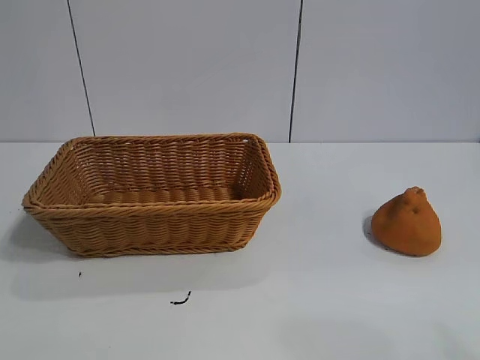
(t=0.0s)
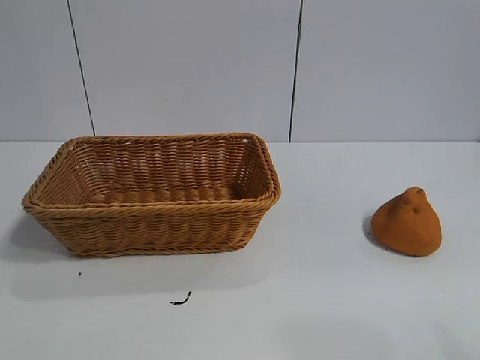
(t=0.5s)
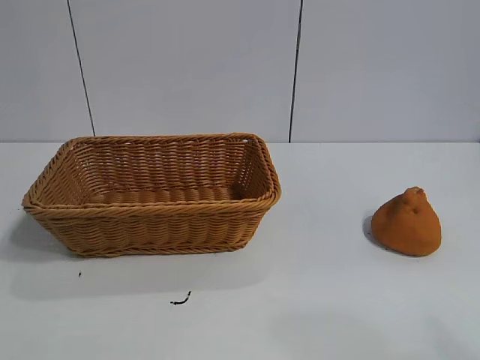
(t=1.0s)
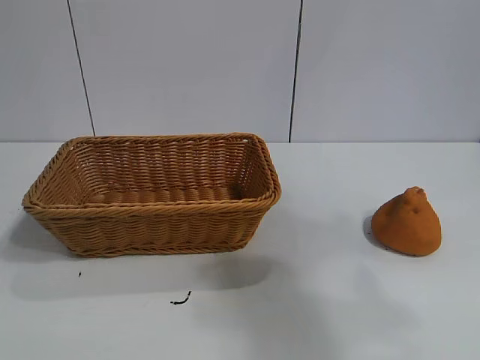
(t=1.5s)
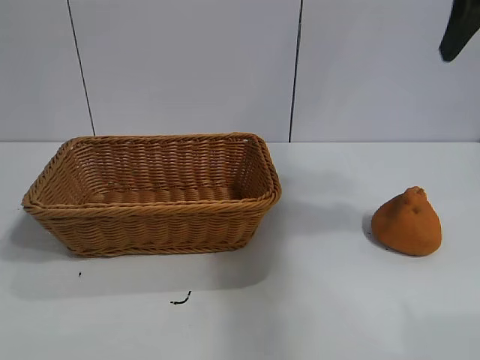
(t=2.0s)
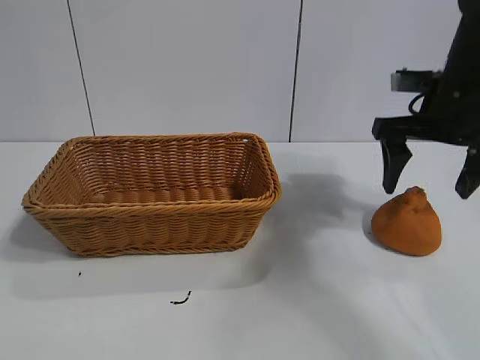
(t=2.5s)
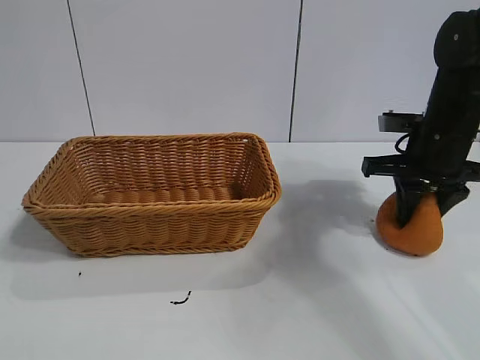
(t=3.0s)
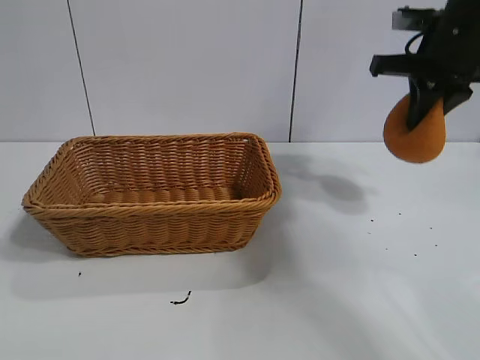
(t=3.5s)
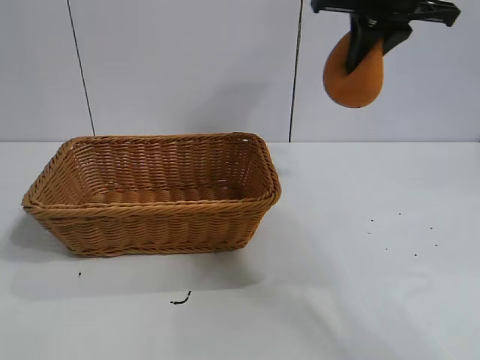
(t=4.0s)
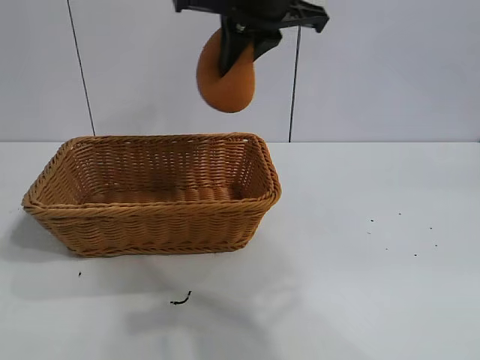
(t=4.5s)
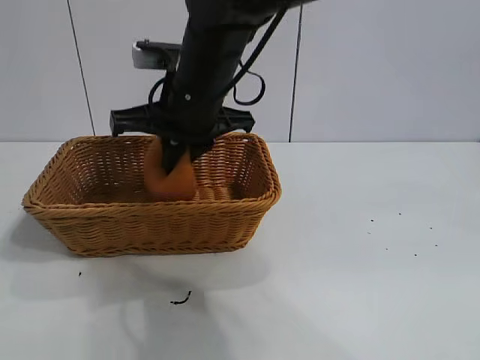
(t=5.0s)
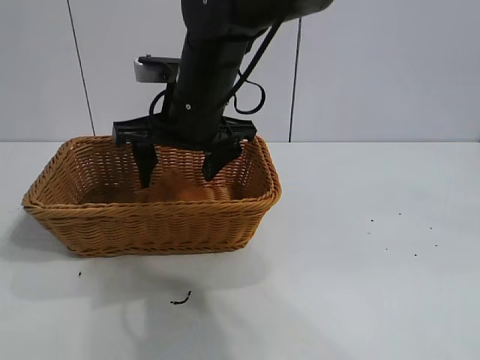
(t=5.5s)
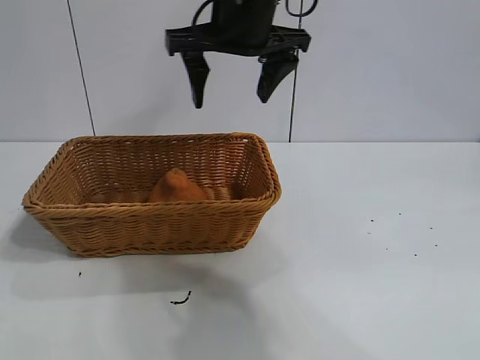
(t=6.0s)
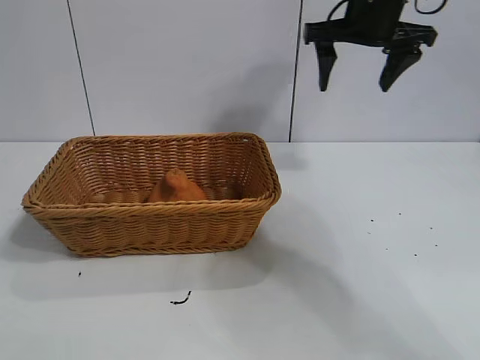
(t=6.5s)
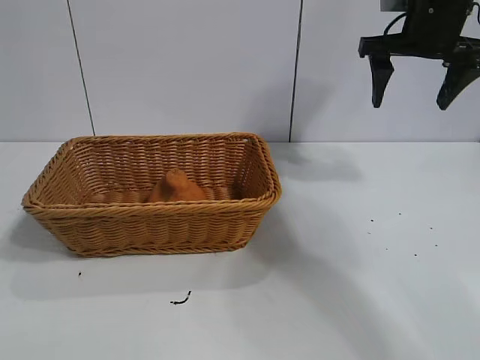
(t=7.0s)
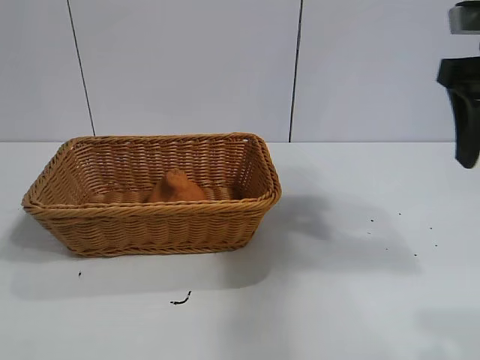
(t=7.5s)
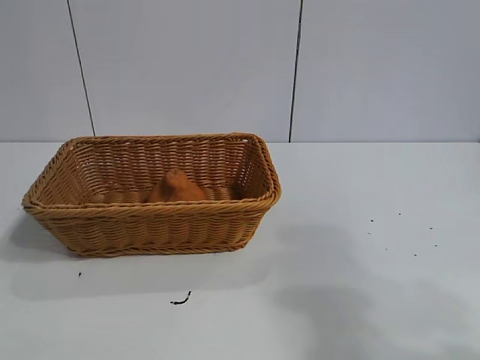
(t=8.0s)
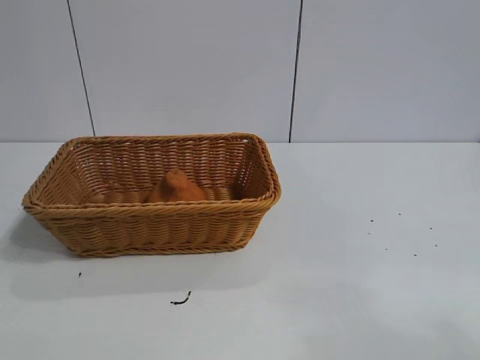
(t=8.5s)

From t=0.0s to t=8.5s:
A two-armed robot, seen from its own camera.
Task of the whole recording: pick up the orange and put it into the basket.
Step, from t=1.0s to t=2.5s: Grasp the orange with right gripper.
Step, from t=3.5s to t=5.5s: Place the orange in the basket with right gripper.
